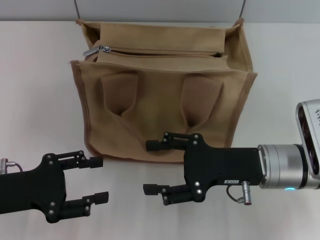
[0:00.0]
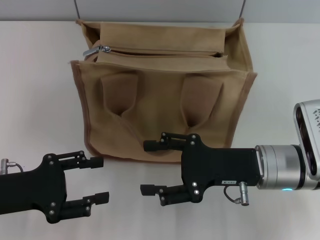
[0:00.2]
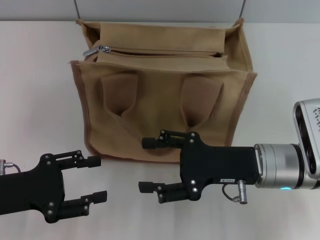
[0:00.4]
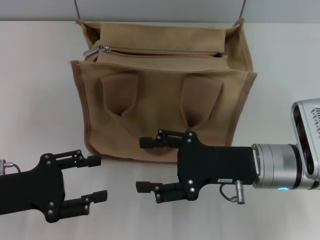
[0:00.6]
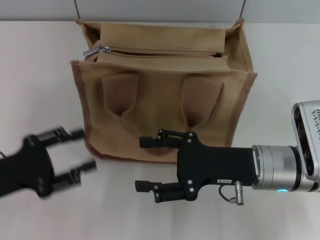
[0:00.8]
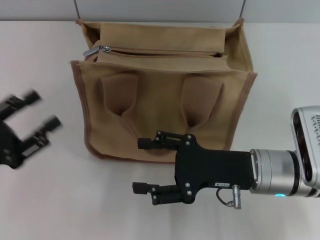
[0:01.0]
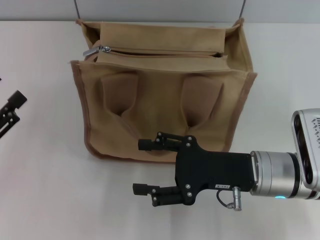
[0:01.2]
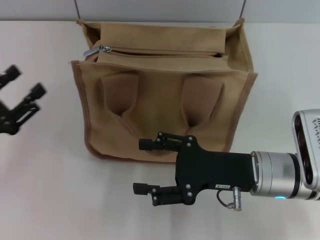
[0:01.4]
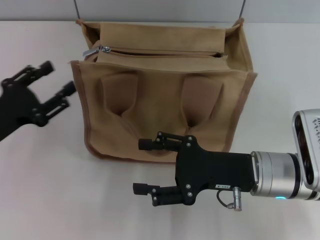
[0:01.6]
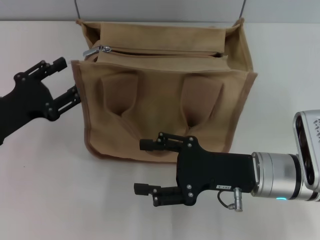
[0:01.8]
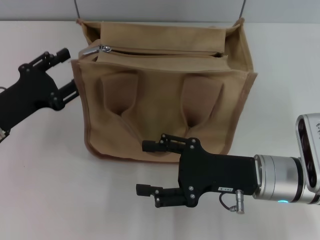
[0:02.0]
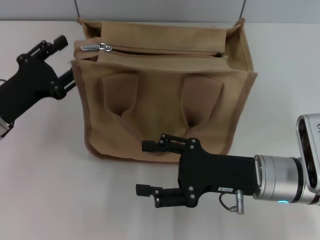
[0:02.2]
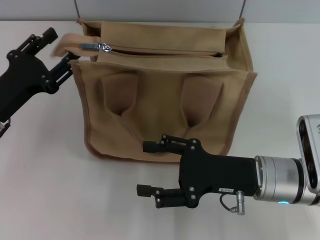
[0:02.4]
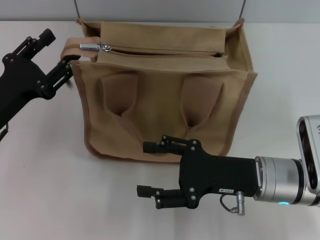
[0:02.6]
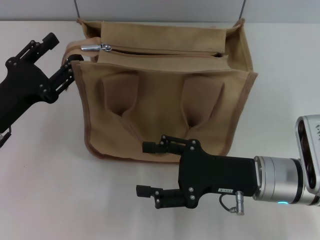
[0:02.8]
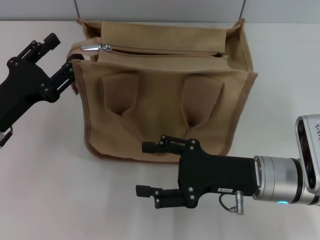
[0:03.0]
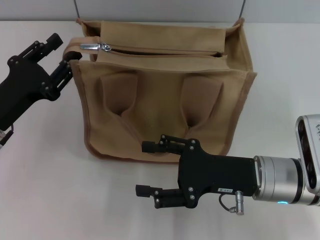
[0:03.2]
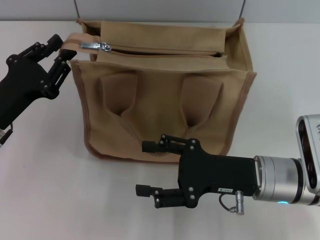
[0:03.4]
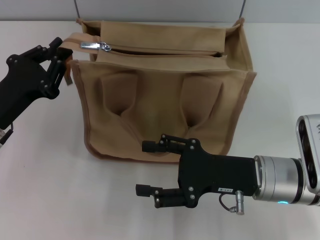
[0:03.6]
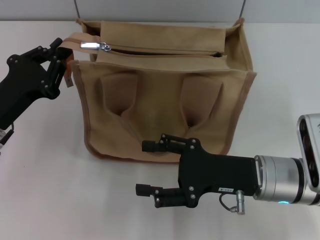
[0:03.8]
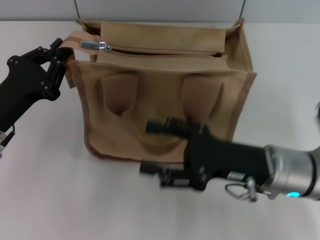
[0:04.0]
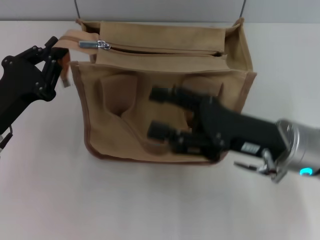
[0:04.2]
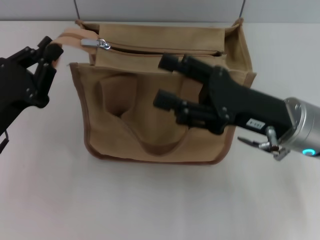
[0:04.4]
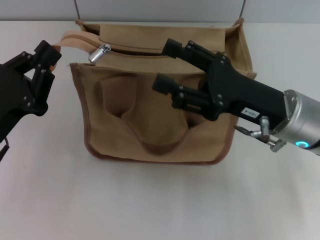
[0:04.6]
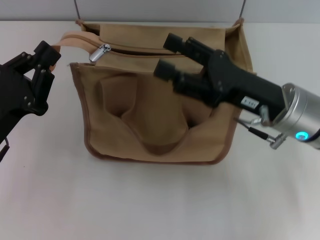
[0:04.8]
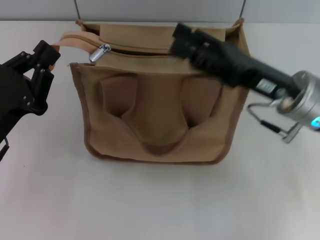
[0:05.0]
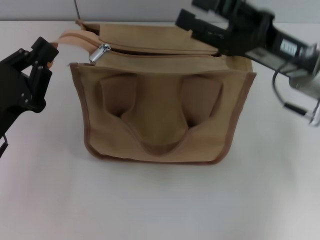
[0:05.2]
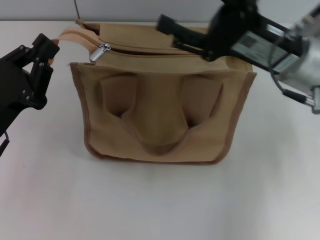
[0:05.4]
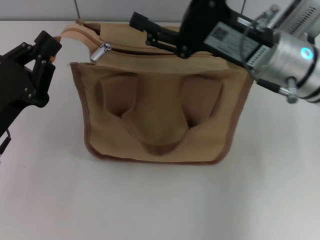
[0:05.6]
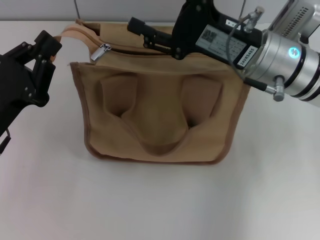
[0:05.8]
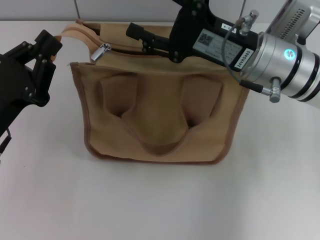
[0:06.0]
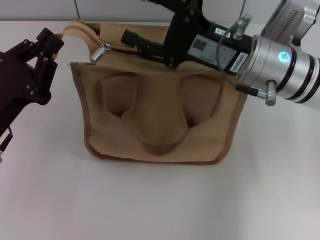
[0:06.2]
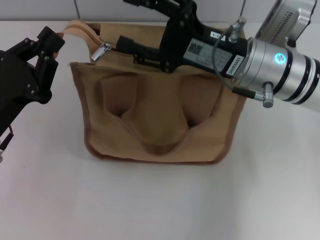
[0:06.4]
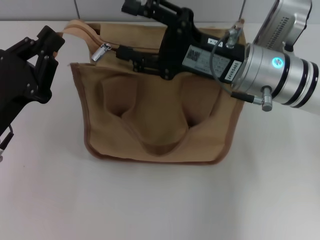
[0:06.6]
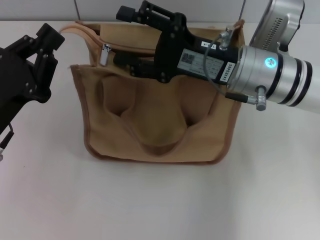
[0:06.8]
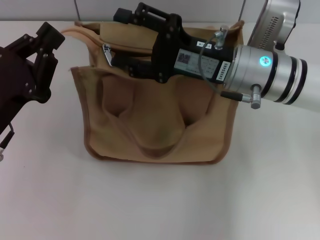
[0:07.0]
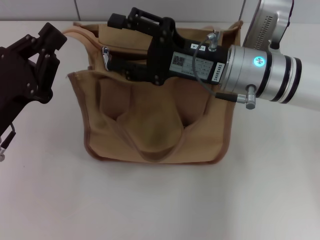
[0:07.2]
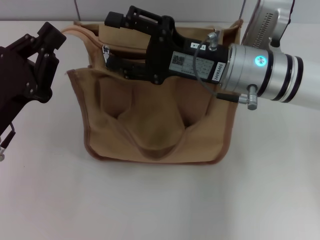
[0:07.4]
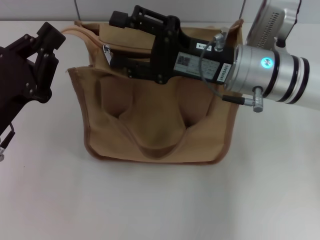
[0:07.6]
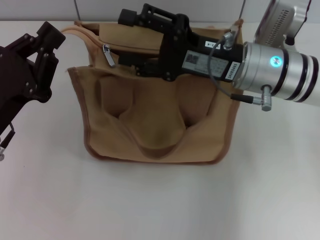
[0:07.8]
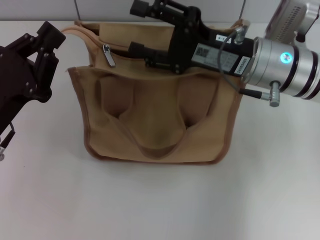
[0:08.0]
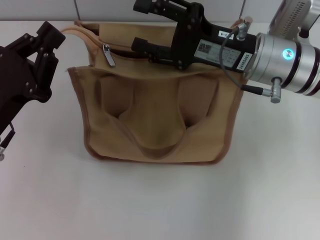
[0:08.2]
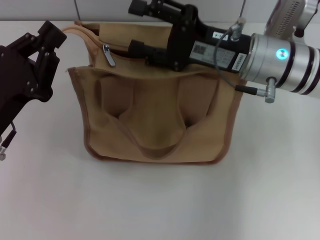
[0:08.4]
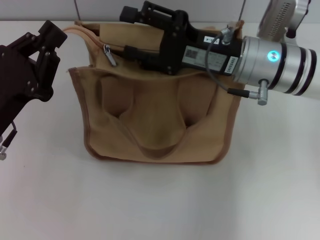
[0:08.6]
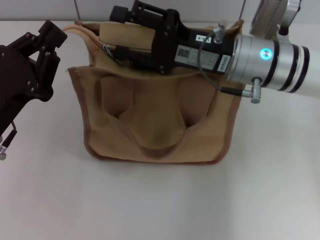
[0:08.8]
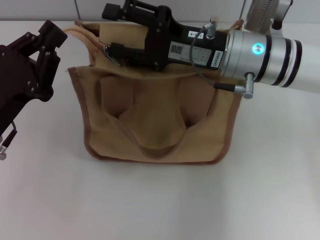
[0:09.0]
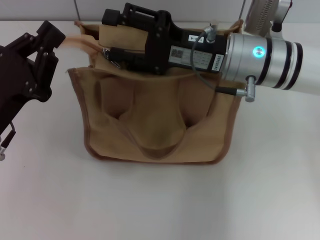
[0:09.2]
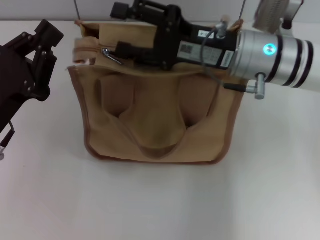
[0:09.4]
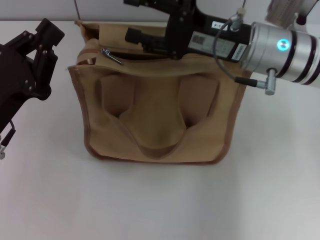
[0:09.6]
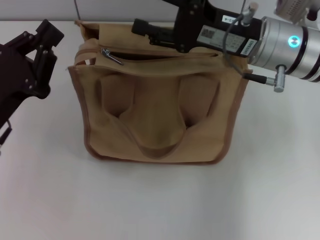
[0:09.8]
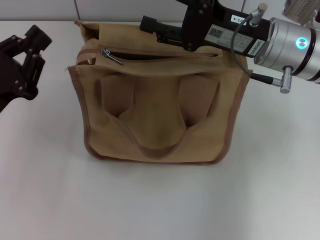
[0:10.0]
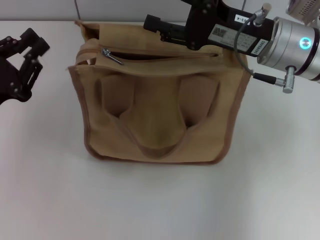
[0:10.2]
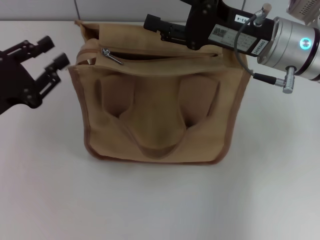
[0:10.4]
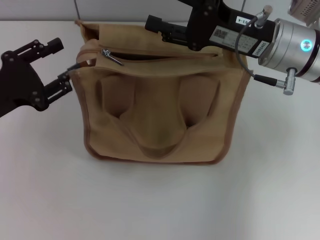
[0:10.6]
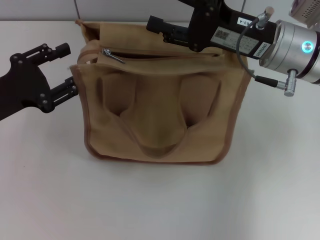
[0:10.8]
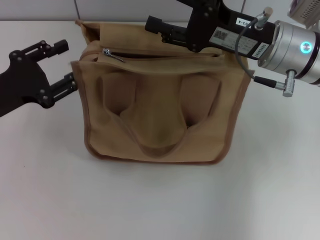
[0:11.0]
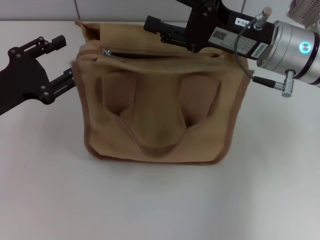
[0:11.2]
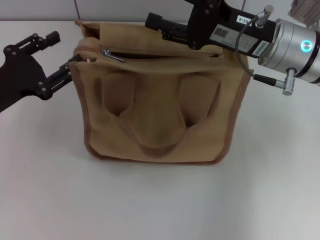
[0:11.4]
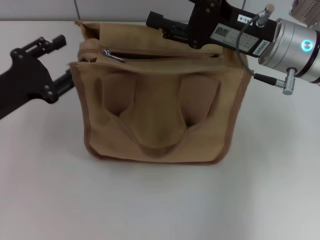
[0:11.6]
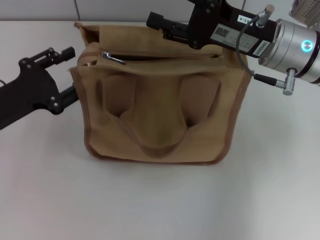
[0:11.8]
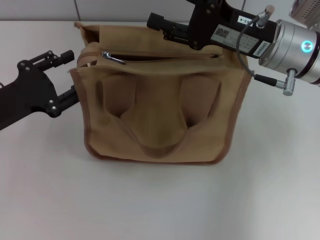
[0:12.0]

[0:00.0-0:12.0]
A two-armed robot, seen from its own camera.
0:01.6 to 0:03.0: The grippers move only a little.
0:03.0 to 0:04.4: The right gripper is displaced upward by roughly 5 cm. The left gripper closes.
0:04.4 to 0:06.0: The right gripper shifts roughly 5 cm forward.
0:07.6 to 0:09.0: The grippers stay close to where they were, moving slightly.
0:09.0 to 0:10.4: The left gripper changes place by about 5 cm.
0:10.4 to 0:12.0: The left gripper opens.

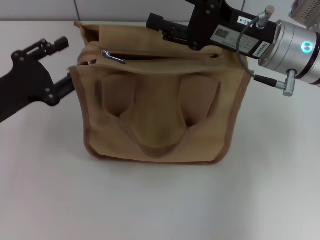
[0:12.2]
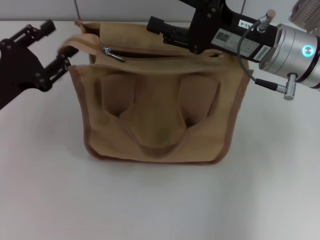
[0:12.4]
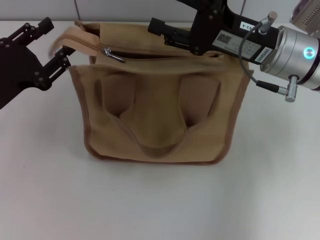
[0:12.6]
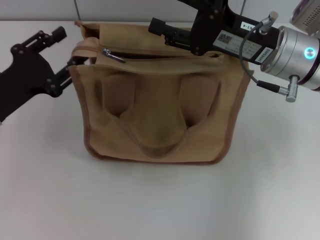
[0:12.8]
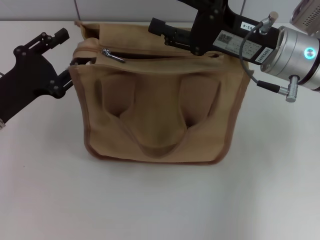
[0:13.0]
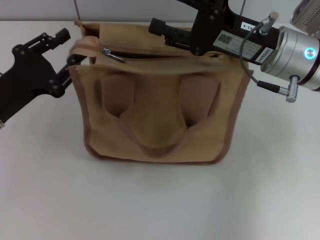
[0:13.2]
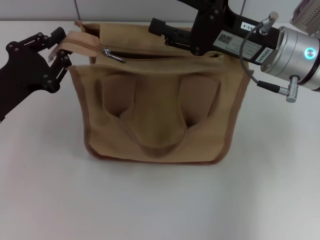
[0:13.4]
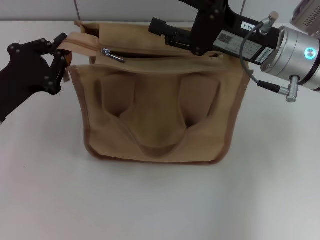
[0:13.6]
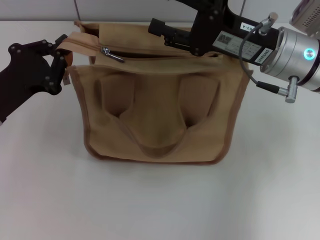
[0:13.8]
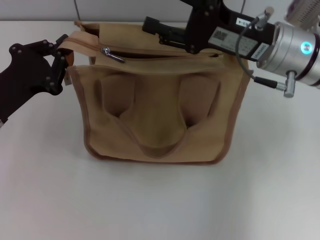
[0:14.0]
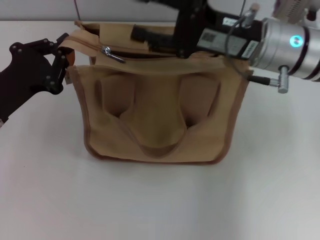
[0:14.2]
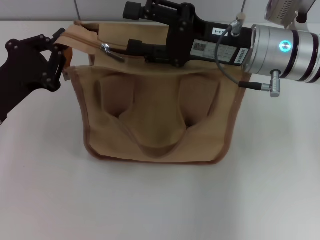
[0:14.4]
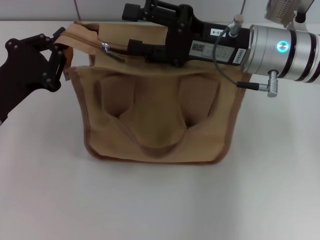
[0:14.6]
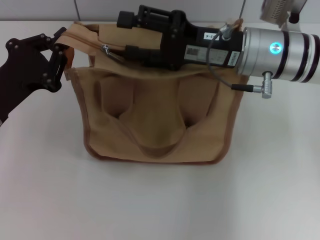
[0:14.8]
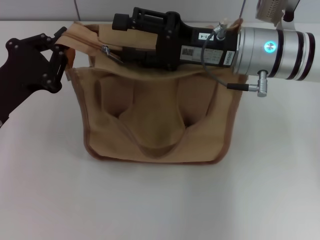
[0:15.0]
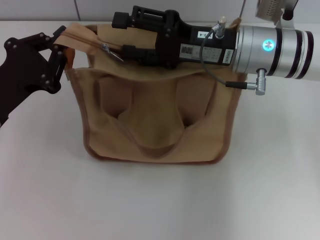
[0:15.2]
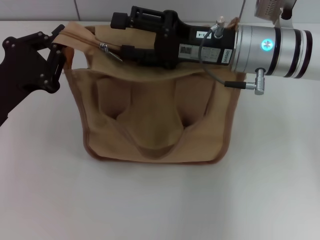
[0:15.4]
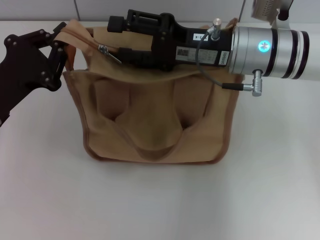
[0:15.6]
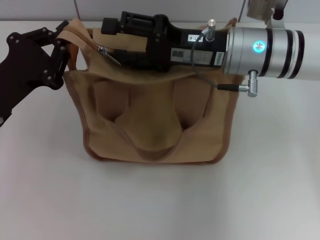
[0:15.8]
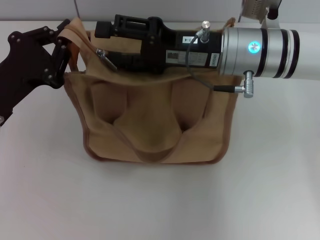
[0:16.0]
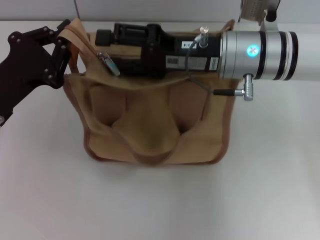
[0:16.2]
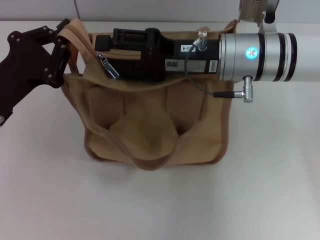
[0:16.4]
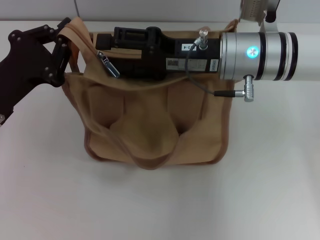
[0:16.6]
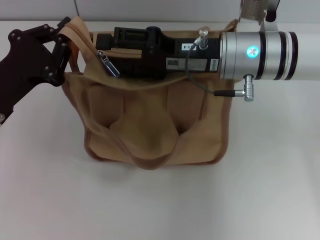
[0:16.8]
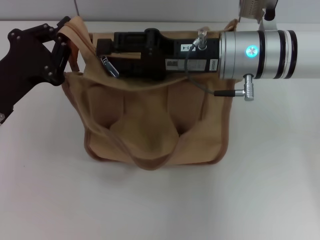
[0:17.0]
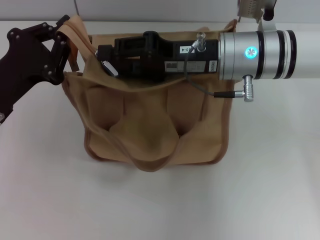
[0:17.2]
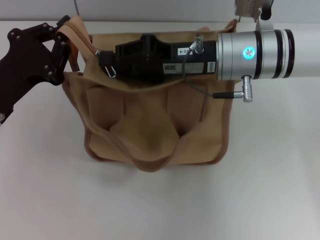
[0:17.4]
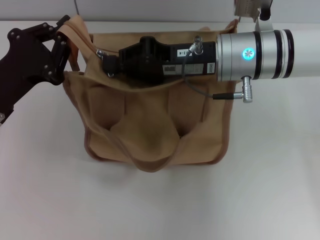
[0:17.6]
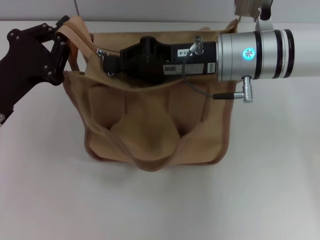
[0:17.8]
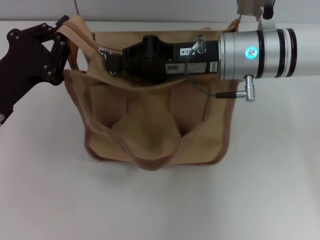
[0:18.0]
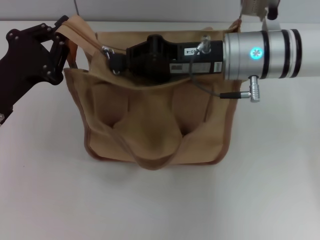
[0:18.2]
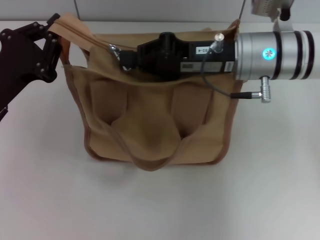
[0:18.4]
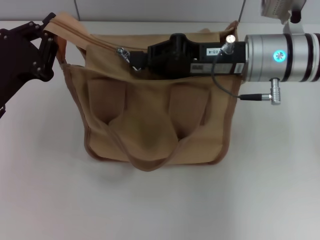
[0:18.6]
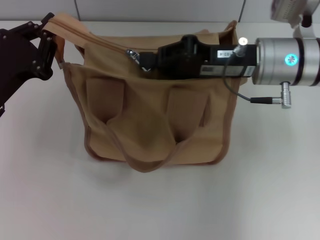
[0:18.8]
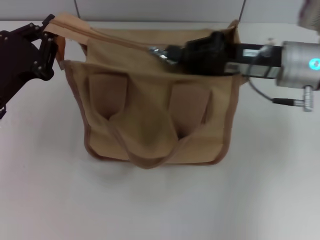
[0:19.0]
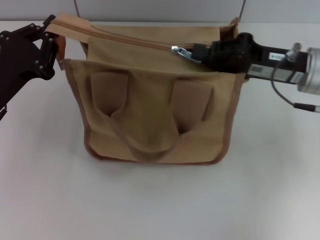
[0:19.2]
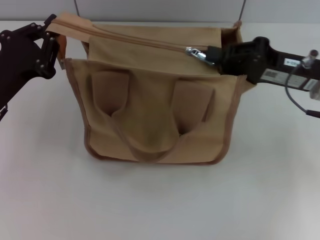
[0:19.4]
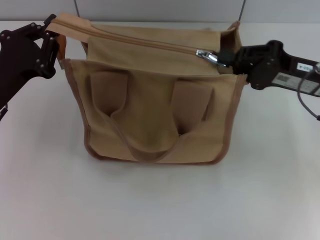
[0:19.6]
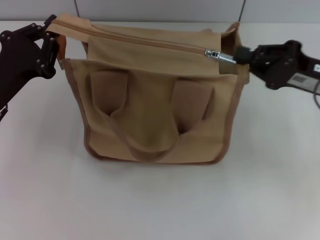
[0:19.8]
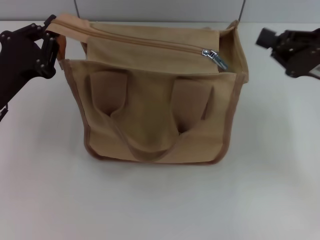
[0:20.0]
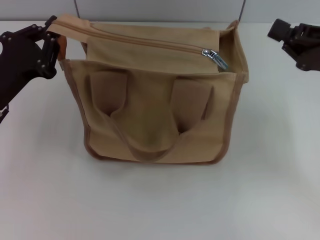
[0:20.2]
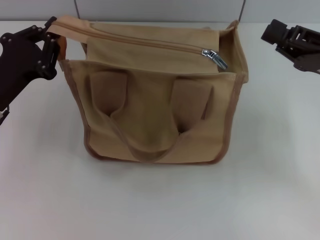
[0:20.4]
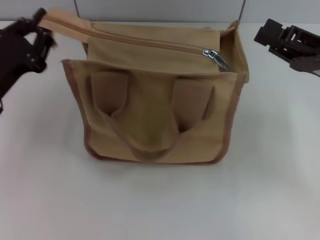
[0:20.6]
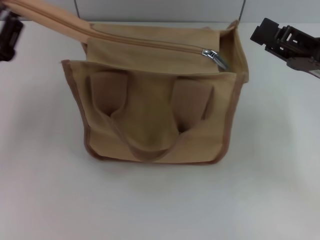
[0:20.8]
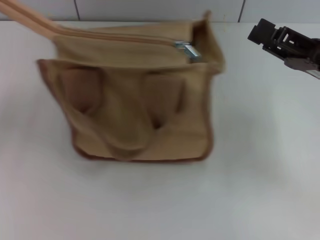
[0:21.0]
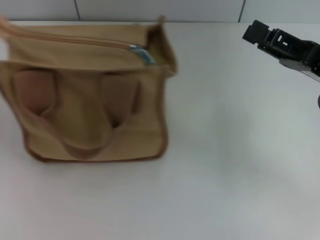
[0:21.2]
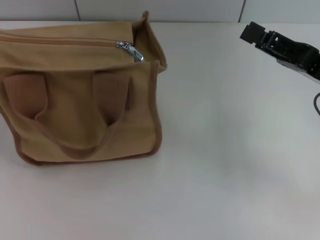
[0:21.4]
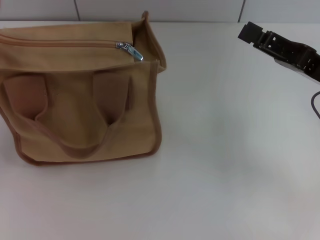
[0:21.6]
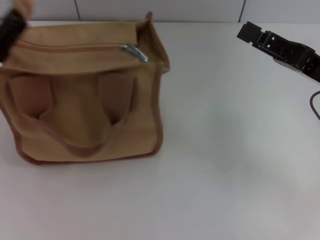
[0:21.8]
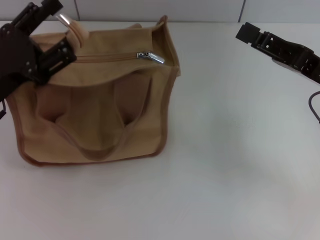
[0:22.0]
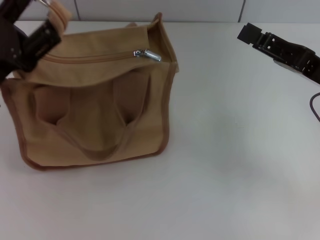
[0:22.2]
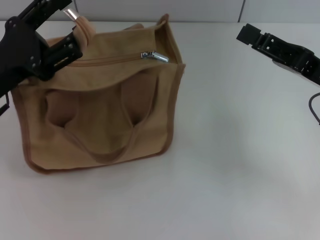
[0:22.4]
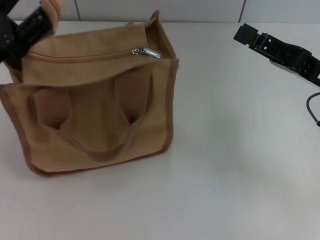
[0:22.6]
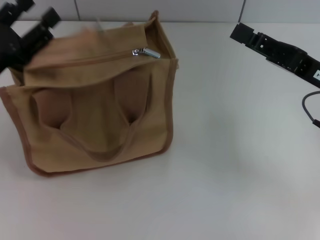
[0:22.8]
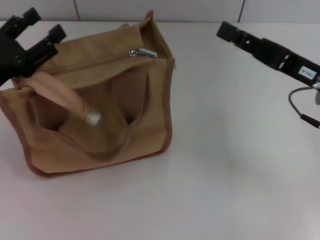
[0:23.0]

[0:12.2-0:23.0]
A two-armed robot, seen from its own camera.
Step, 0:12.2 to 0:19.8: Pull up the zipper with your right hand.
Step, 0:20.0 to 0:22.6: Grab the zipper with your left hand.
0:12.2 to 0:13.8: The left gripper closes up.
0:16.8 to 0:18.4: The right gripper closes up.
0:18.4 to 0:20.0: The right gripper shifts some 15 cm to the right.
0:20.0 to 0:21.4: The left gripper heads to the left, covering roughly 5 cm, and opens its fingers, while the right gripper opens up.
